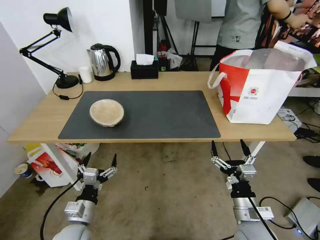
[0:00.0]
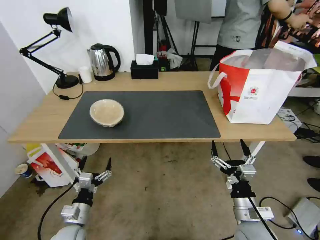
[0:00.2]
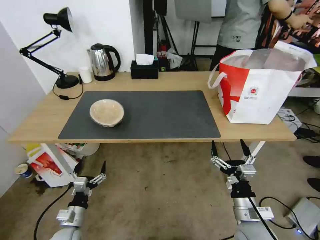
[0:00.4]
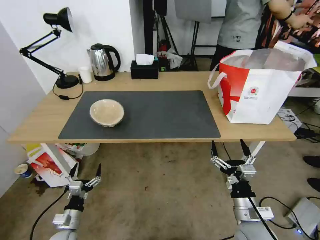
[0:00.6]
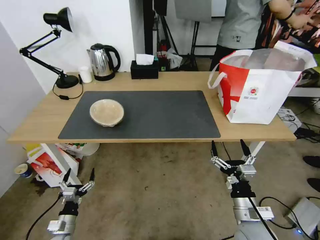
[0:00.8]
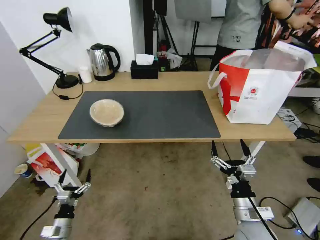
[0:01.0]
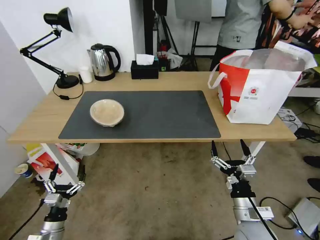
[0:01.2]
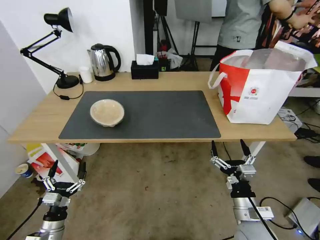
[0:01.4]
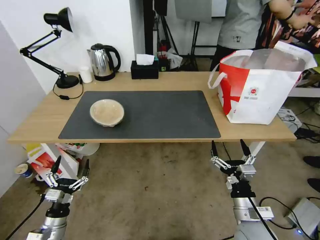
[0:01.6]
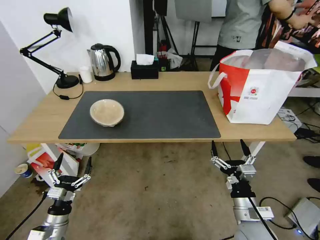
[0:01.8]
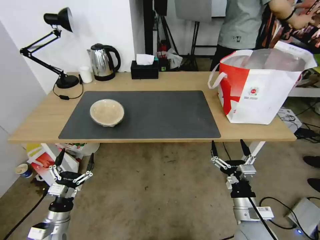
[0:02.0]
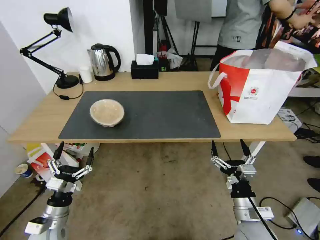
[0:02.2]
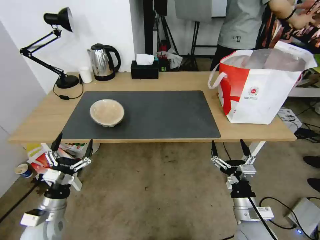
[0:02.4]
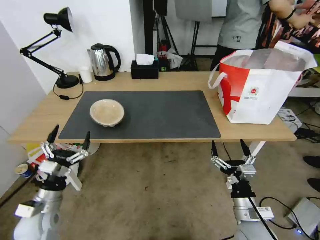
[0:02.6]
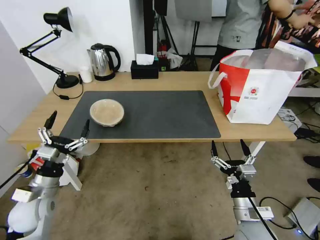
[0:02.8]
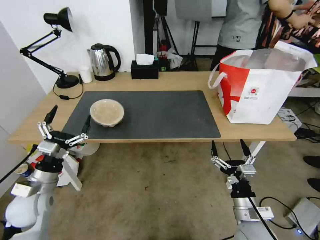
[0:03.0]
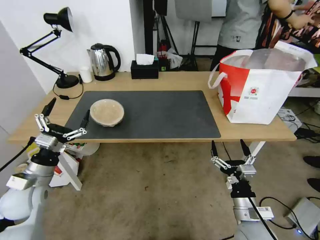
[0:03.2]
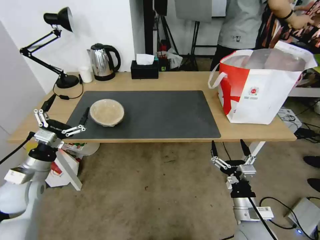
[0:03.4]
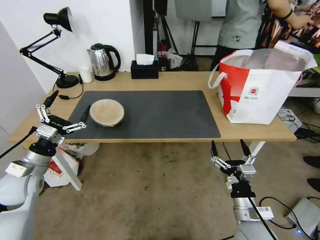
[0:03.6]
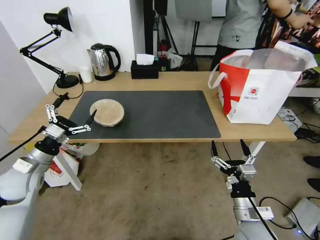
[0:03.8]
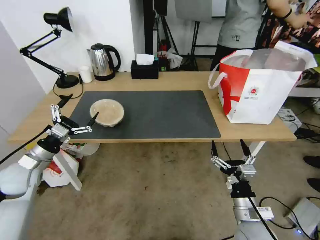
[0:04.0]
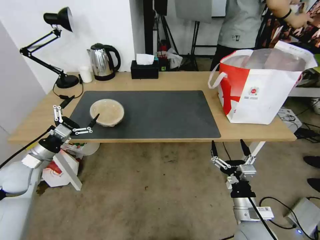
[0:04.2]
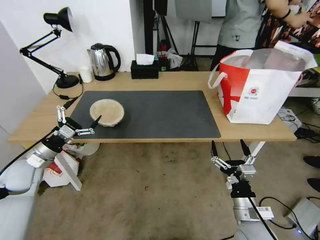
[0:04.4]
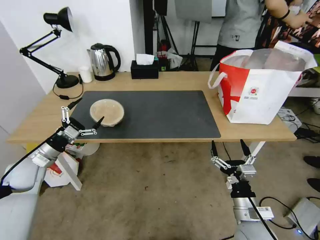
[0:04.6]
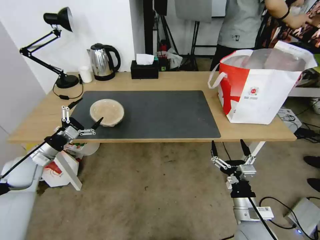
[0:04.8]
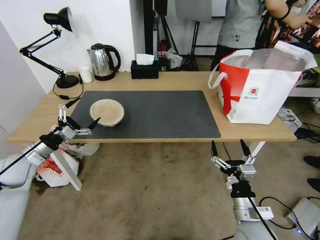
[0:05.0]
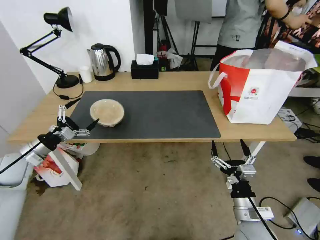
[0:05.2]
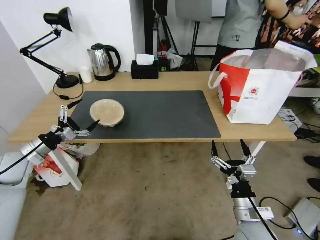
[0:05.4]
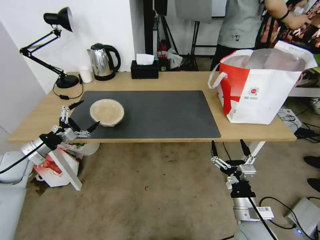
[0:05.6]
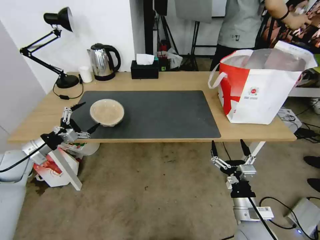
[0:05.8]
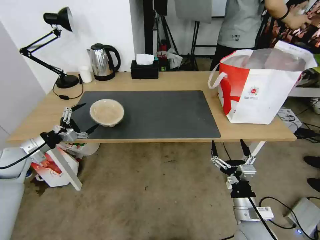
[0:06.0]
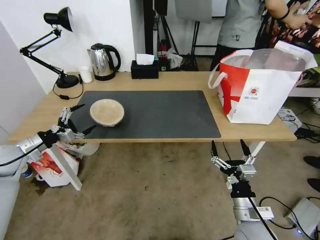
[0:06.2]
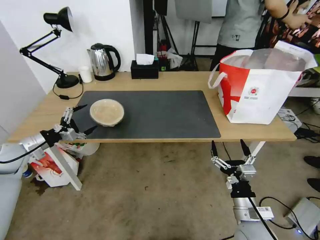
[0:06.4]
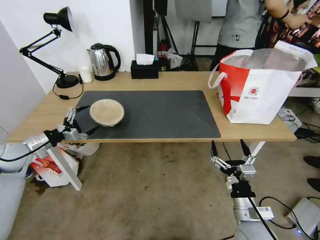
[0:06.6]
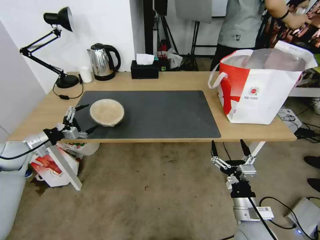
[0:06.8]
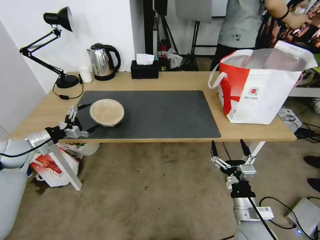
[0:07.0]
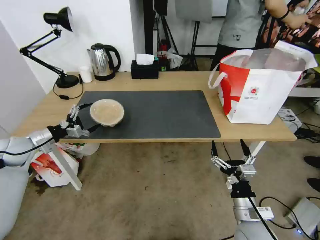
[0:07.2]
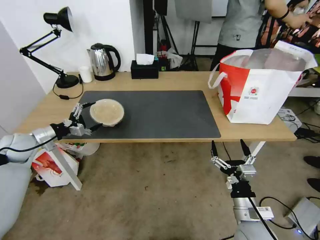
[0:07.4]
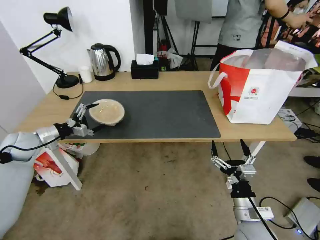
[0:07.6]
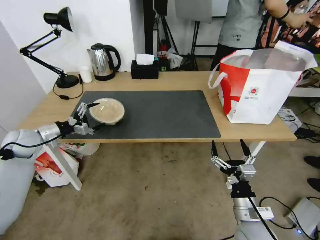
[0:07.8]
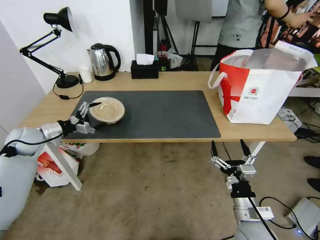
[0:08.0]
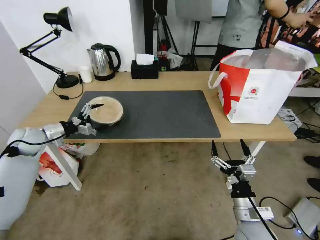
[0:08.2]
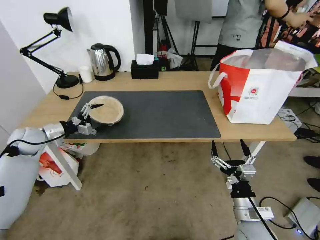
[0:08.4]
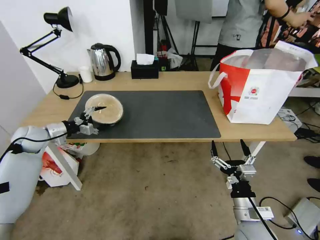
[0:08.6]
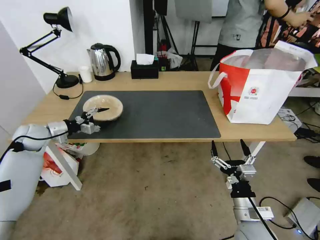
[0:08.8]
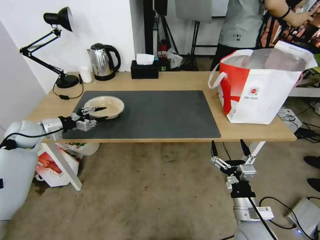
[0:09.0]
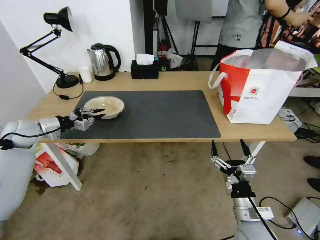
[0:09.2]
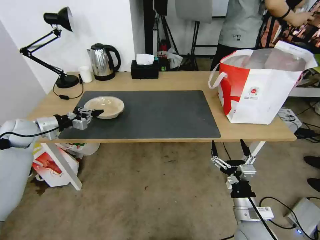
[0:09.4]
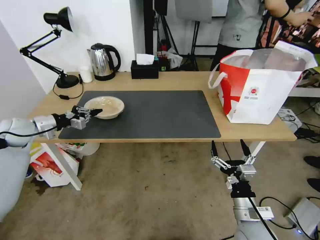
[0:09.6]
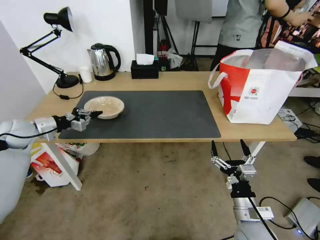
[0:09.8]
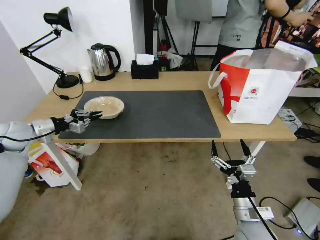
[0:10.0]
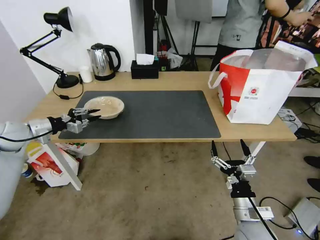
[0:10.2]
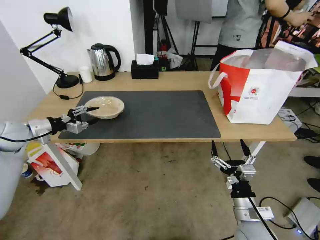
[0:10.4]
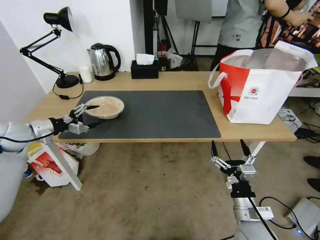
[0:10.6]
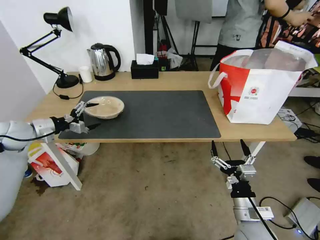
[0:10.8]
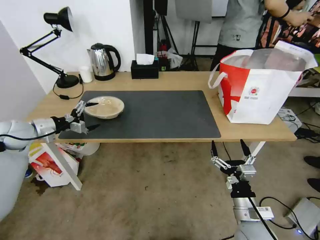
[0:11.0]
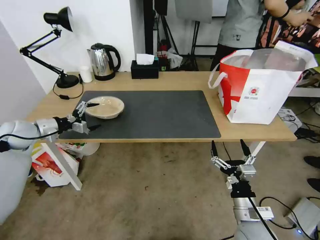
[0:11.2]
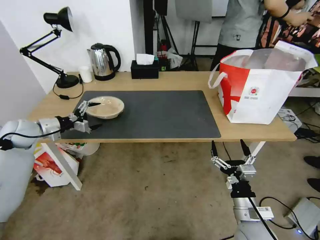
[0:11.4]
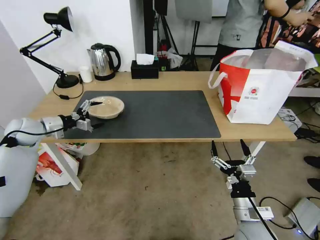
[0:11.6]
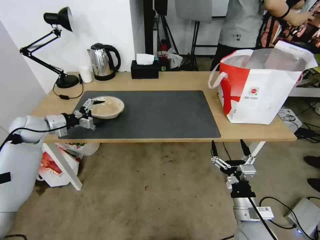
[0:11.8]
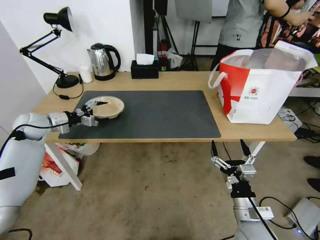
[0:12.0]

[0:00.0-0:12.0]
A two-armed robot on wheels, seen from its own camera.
Task of the whole recording: Pick up the trash from the table and place it into the takeout bag.
0:00.0 to 0:01.6: The left gripper moves to the left and downward, some 15 cm.
0:01.6 to 0:03.0: The left gripper heads upward and forward, covering approximately 20 cm.
0:03.0 to 0:04.4: The left gripper travels forward and to the left by some 10 cm.
0:04.4 to 0:06.0: The left gripper changes place by some 5 cm.
0:06.0 to 0:07.6: The left gripper heads forward, covering some 5 cm.
0:07.6 to 0:09.0: The left gripper closes.
0:09.0 to 0:10.4: The left gripper closes, then reopens.
0:10.4 to 0:12.0: The left gripper travels forward by approximately 5 cm.

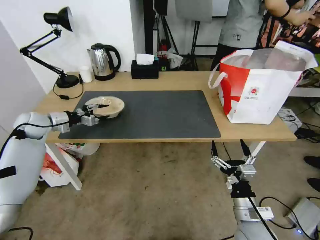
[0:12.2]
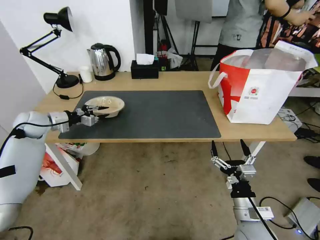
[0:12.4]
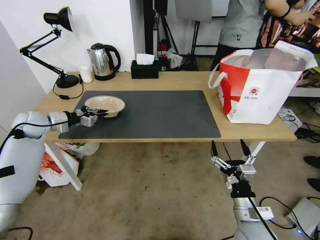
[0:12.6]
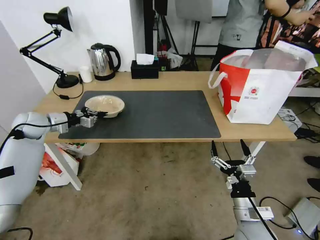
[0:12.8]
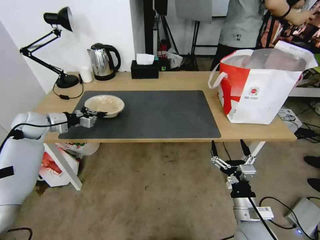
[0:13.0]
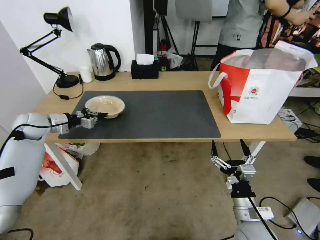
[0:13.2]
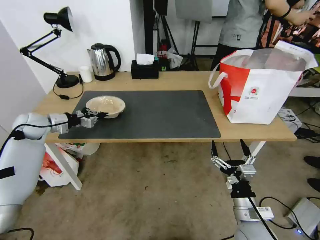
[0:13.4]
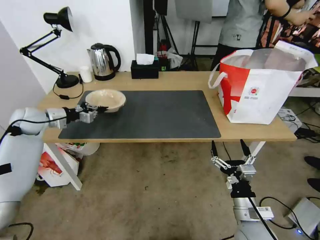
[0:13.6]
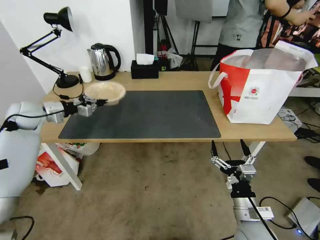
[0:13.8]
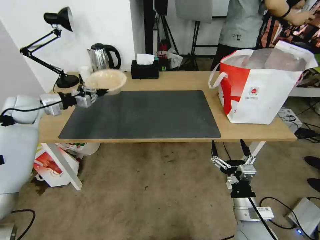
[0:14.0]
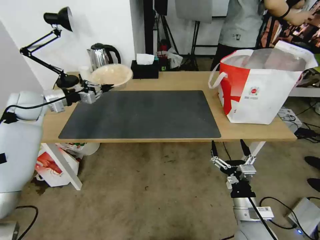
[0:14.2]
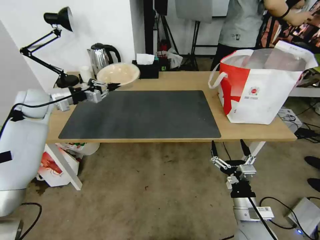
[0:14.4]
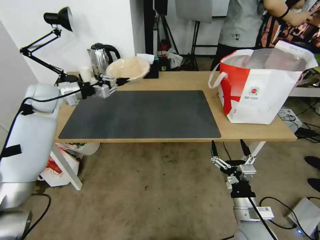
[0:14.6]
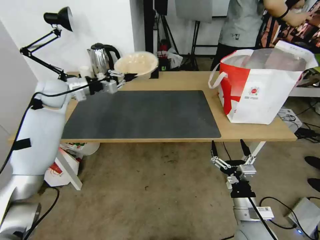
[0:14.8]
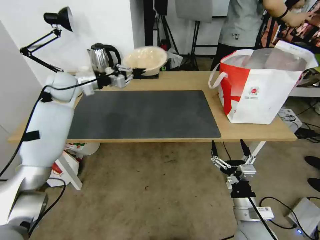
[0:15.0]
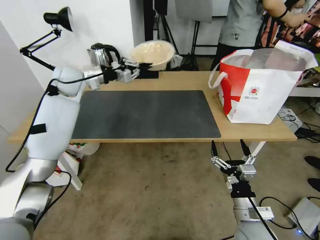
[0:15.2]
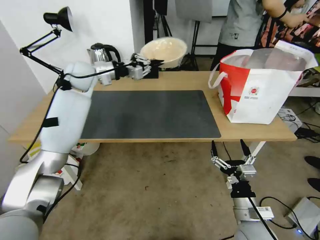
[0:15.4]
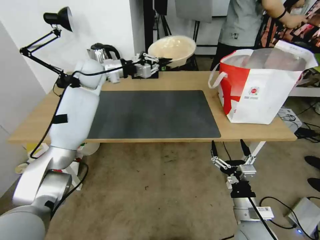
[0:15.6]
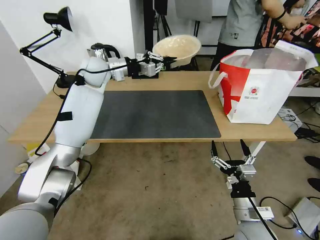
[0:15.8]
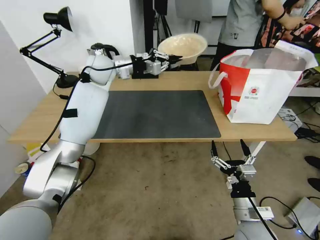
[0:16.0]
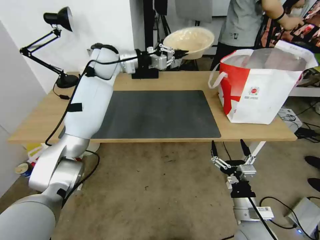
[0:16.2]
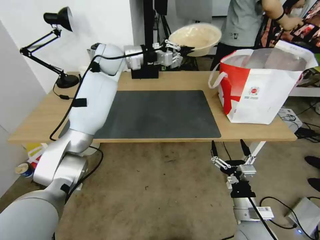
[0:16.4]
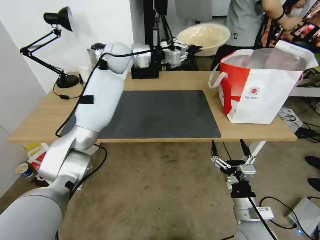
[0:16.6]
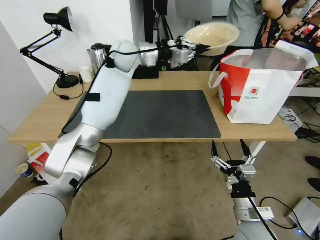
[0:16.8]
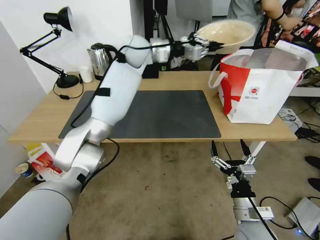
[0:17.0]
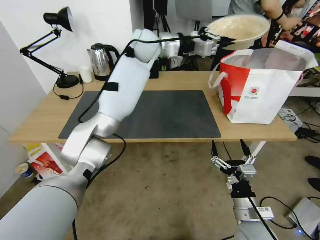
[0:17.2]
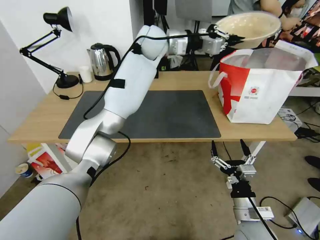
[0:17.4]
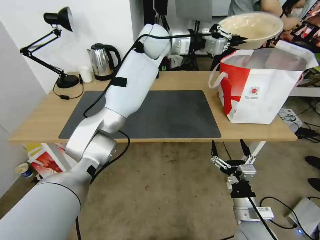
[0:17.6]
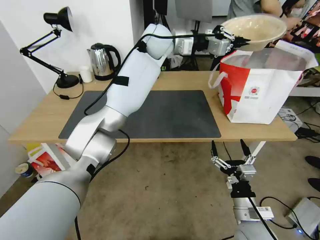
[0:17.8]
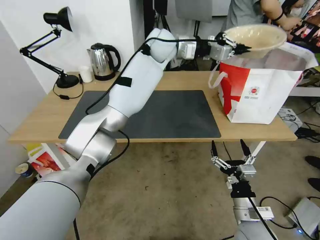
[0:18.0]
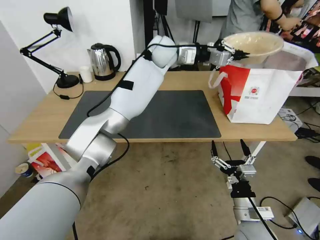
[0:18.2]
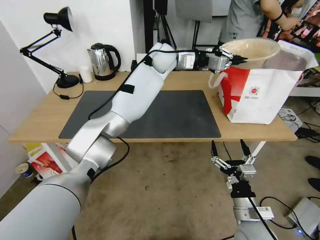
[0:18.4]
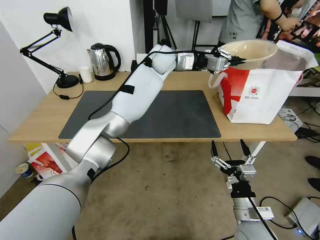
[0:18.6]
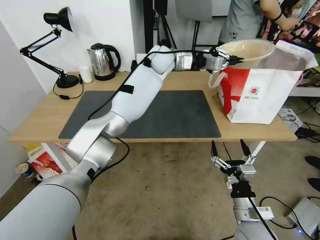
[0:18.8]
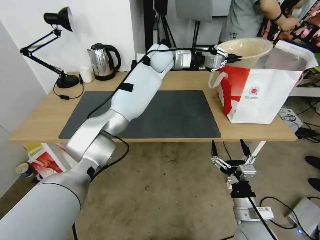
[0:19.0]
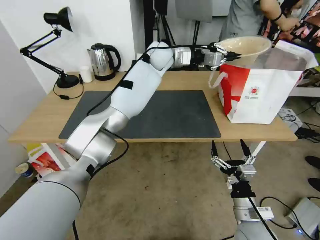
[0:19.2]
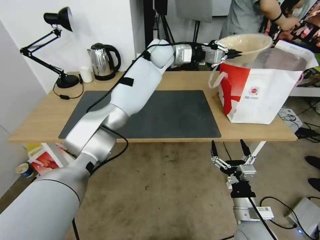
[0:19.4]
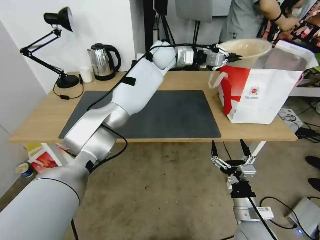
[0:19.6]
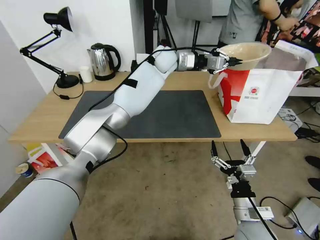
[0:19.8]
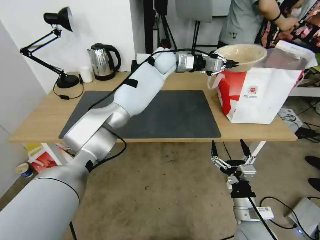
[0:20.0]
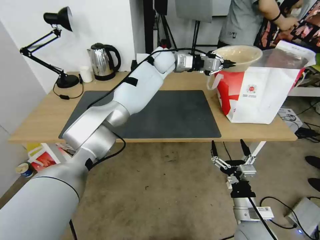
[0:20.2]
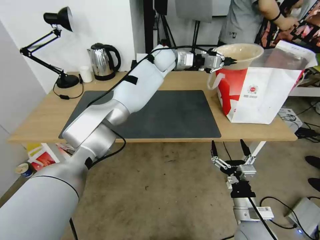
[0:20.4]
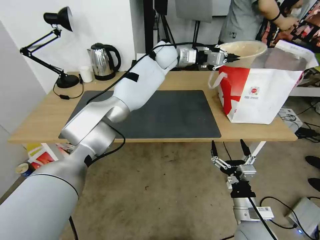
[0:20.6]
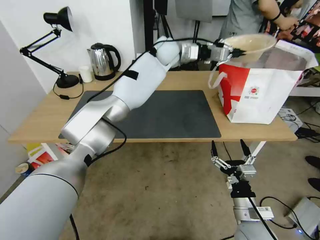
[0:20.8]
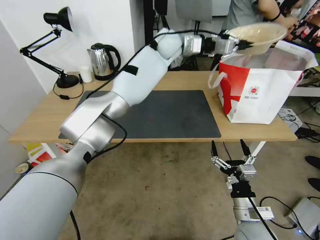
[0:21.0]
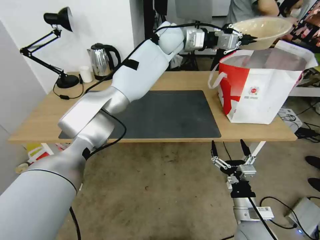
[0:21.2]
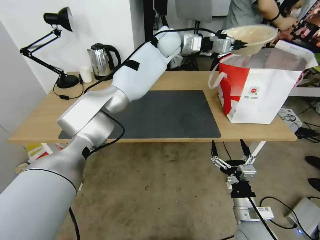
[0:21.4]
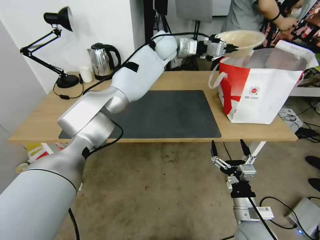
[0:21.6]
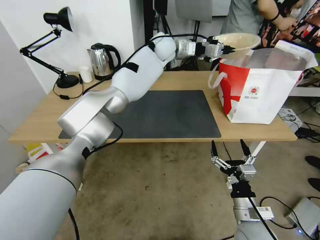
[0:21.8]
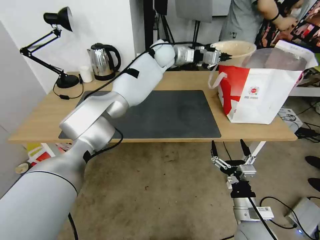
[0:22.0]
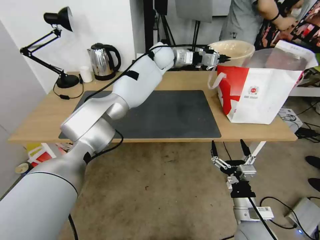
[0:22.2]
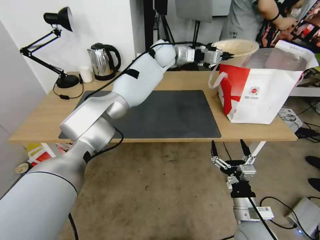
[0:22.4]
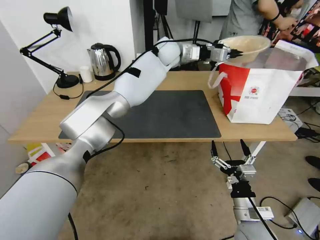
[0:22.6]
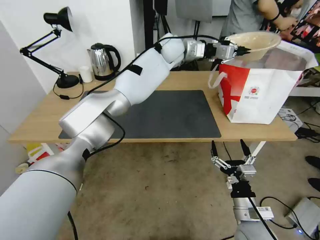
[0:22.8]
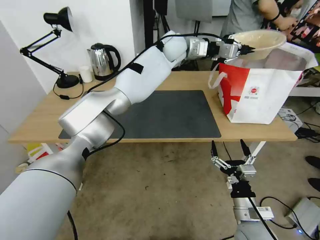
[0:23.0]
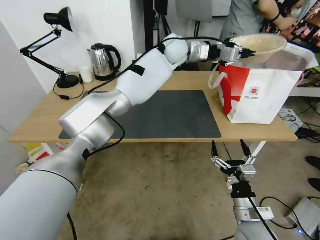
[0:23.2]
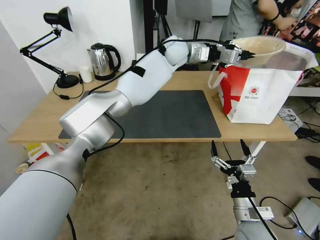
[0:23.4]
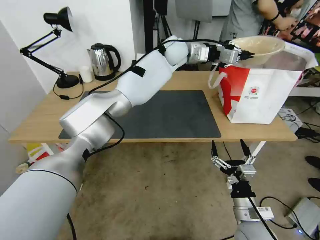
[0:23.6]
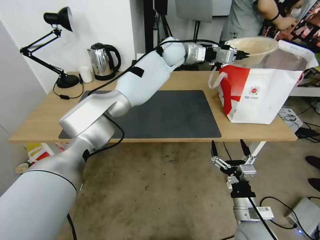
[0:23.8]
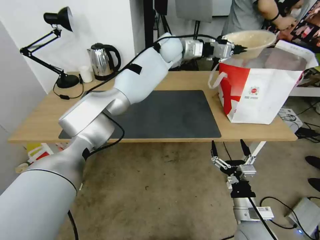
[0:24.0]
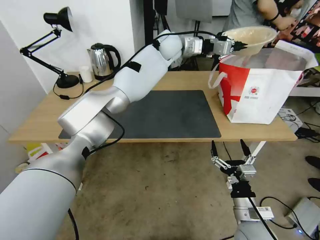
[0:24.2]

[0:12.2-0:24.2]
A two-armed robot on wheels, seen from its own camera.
Task of the whole recording: Pick up the trash from the table and place it into the takeout bag.
0:12.2 to 0:13.8: The left gripper closes its fingers.
0:13.8 to 0:15.2: The left gripper shifts some 20 cm to the right, upward and forward.
0:15.2 to 0:16.6: The left gripper shifts approximately 15 cm to the right.
0:16.6 to 0:18.2: The left gripper goes roughly 15 cm to the right.
0:18.2 to 0:19.8: The grippers move only a little.
0:19.8 to 0:21.2: The left gripper is displaced upward by some 5 cm.
0:22.6 to 0:24.2: There are only small adjustments of the grippers.
